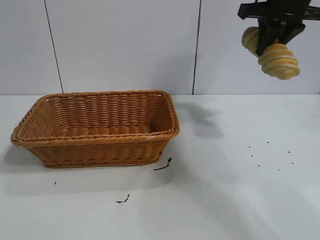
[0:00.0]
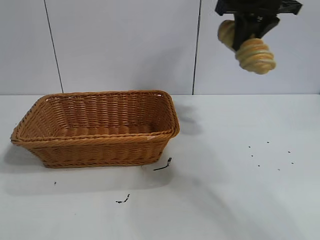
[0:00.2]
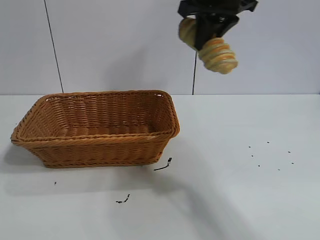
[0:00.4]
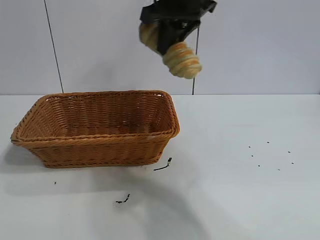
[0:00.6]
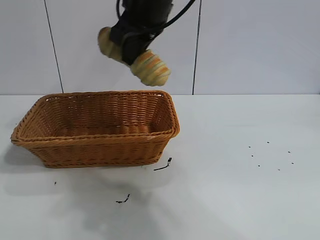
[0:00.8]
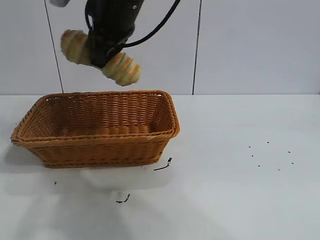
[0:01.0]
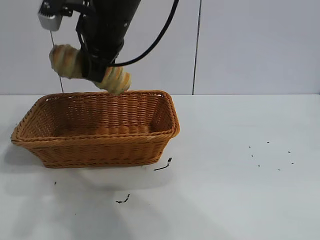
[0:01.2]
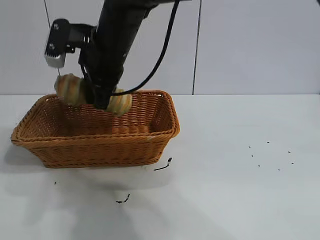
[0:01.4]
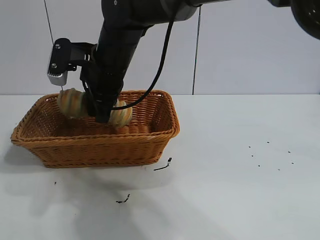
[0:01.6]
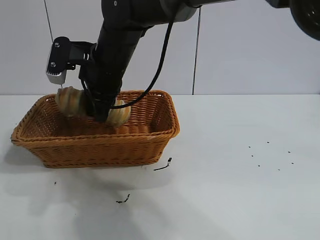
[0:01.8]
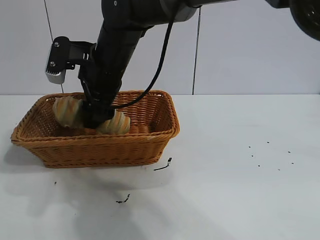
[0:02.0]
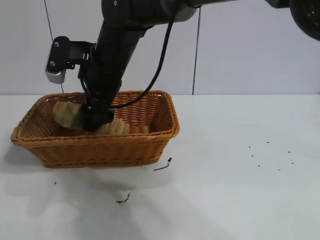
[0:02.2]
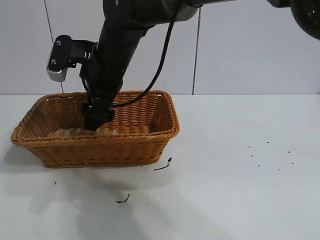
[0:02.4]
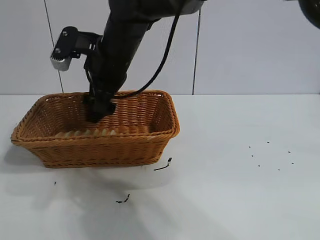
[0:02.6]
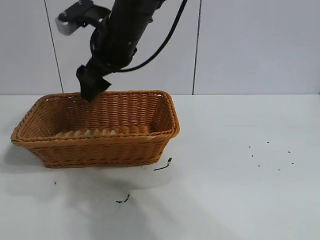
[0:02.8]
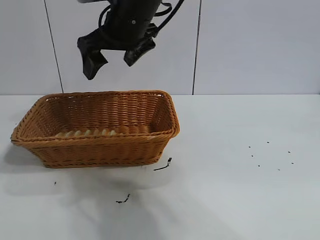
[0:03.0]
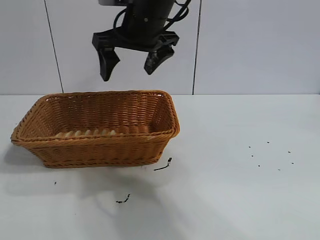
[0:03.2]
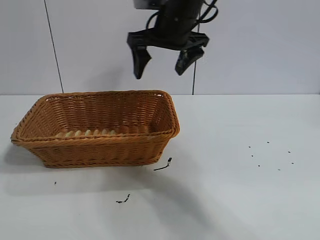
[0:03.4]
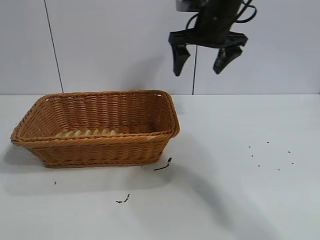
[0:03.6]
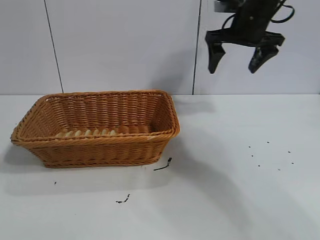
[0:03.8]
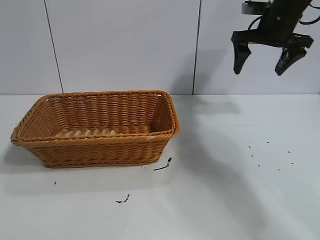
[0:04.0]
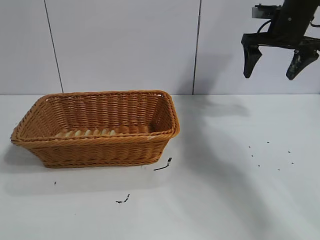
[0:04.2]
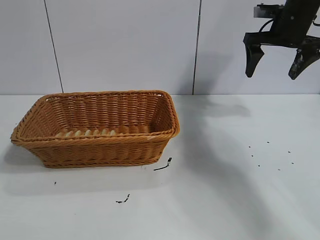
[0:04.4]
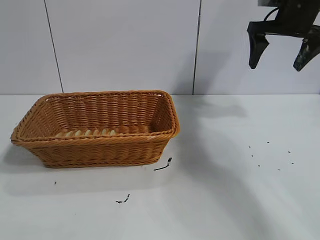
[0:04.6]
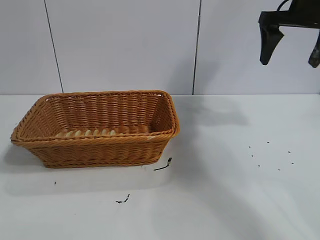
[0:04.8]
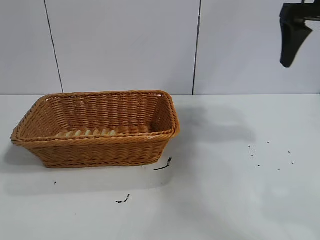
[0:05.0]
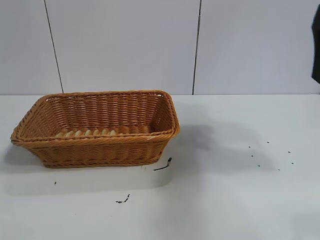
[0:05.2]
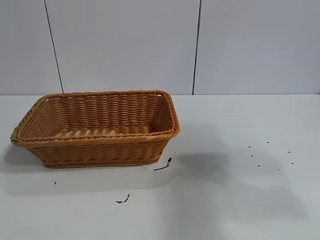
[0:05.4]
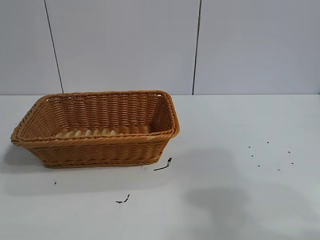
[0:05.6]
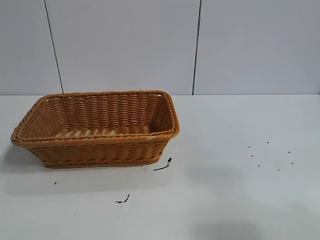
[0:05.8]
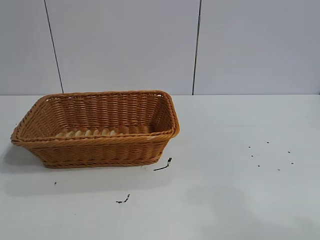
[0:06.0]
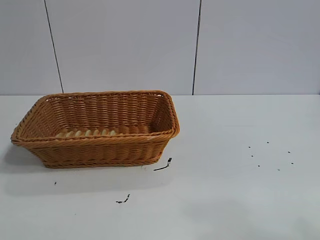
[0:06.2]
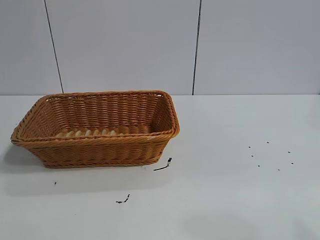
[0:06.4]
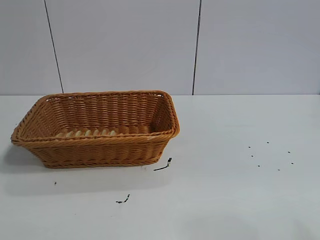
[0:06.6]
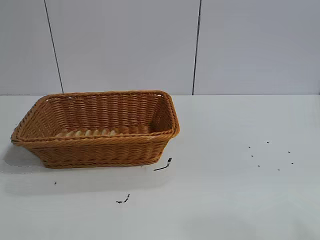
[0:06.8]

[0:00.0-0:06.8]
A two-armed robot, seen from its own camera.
Task of the whole recording: pick up the long bread and put it into the basket.
Step, 0:00.0 to 0:02.6: Place the long bread in the basket with right gripper.

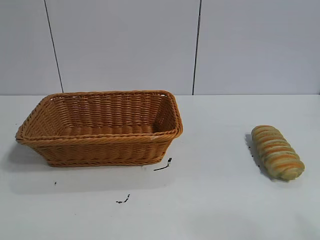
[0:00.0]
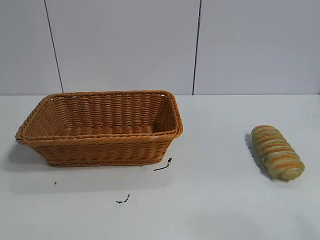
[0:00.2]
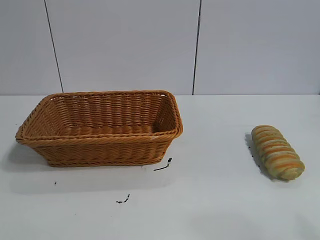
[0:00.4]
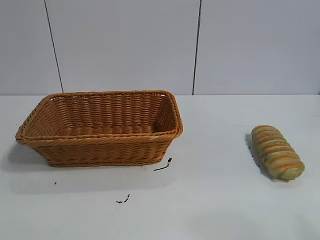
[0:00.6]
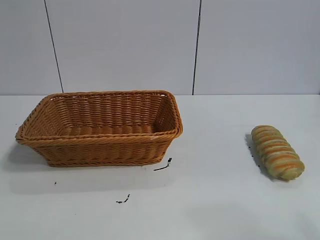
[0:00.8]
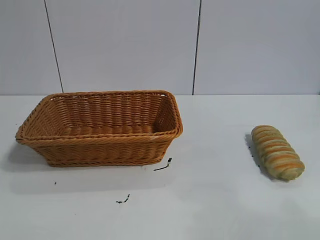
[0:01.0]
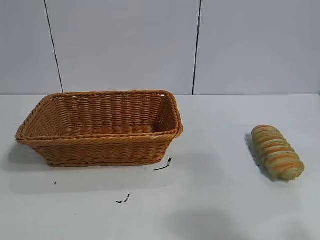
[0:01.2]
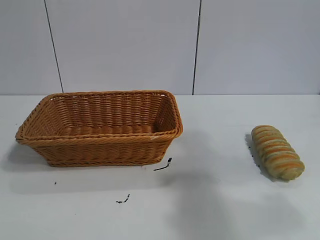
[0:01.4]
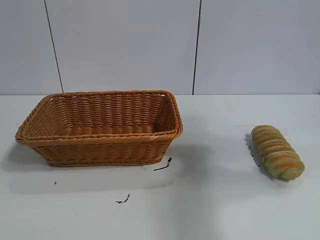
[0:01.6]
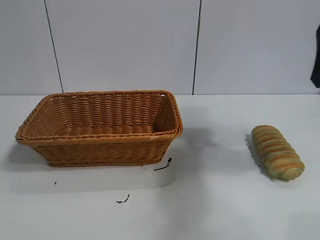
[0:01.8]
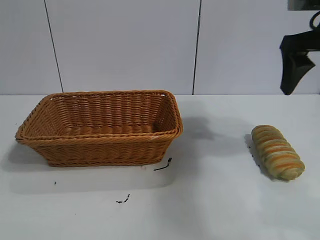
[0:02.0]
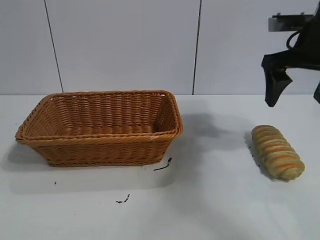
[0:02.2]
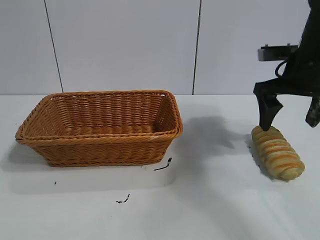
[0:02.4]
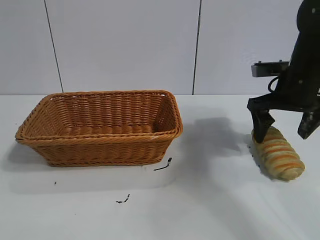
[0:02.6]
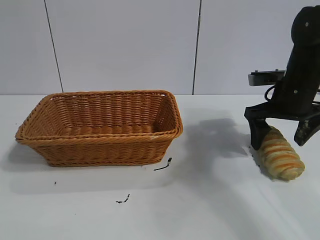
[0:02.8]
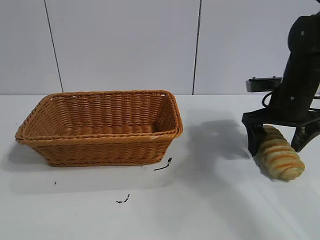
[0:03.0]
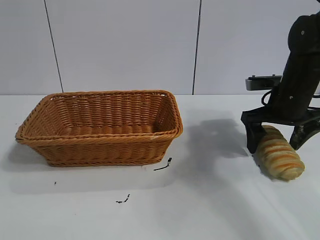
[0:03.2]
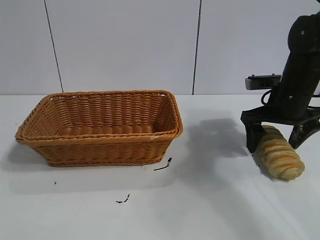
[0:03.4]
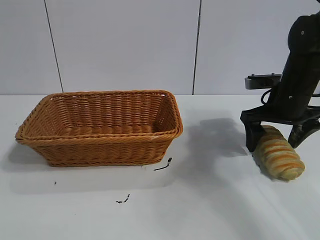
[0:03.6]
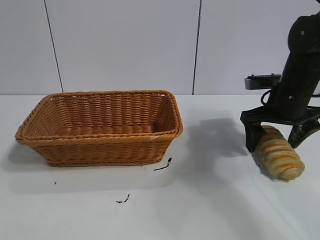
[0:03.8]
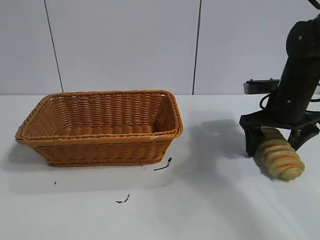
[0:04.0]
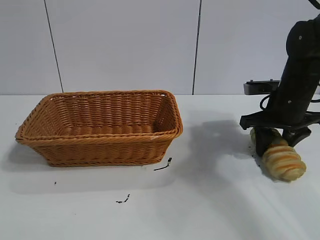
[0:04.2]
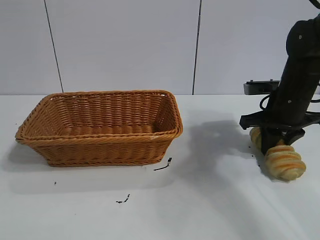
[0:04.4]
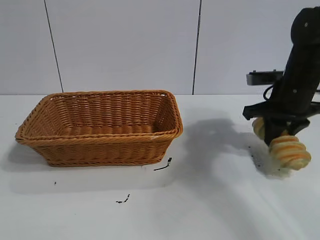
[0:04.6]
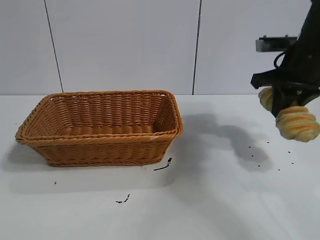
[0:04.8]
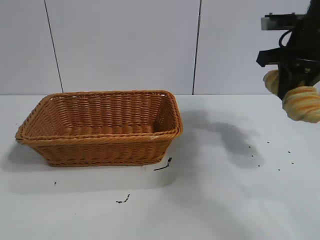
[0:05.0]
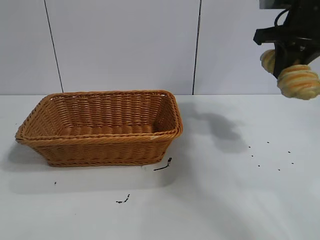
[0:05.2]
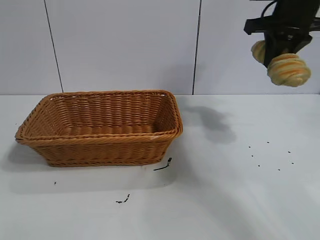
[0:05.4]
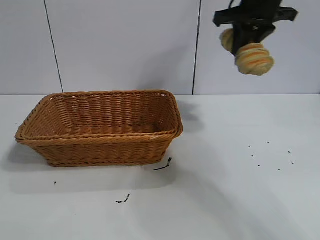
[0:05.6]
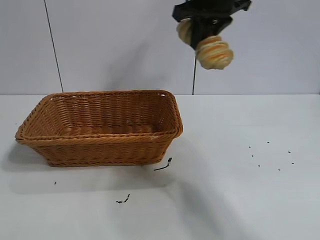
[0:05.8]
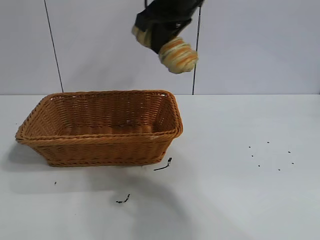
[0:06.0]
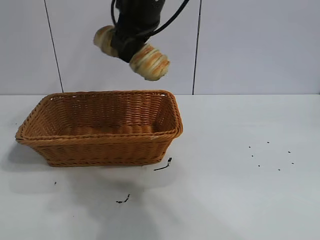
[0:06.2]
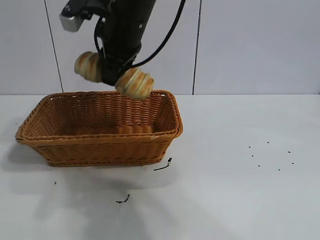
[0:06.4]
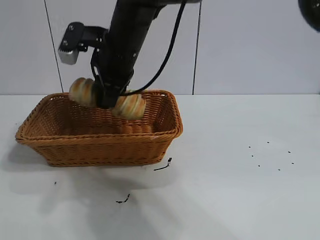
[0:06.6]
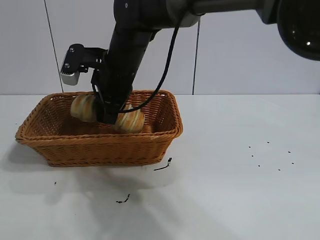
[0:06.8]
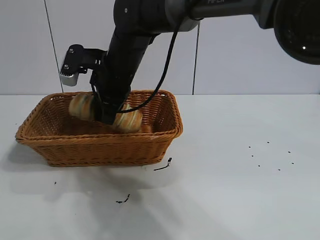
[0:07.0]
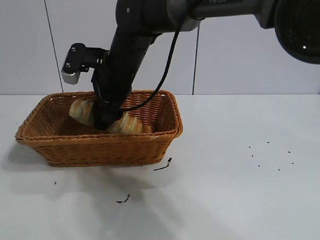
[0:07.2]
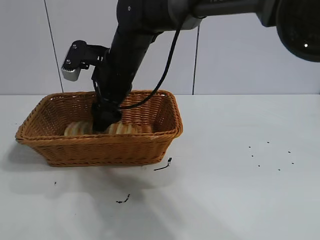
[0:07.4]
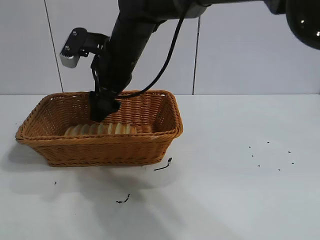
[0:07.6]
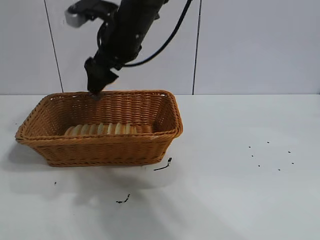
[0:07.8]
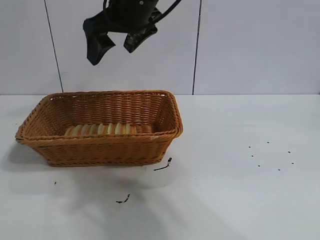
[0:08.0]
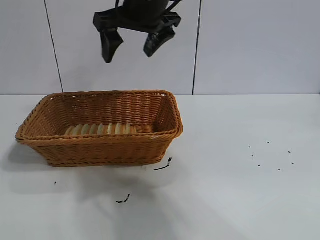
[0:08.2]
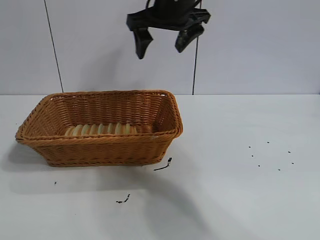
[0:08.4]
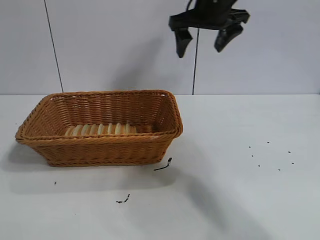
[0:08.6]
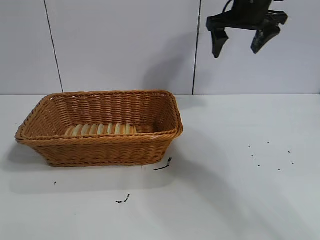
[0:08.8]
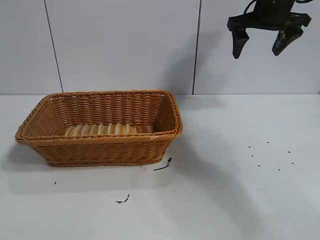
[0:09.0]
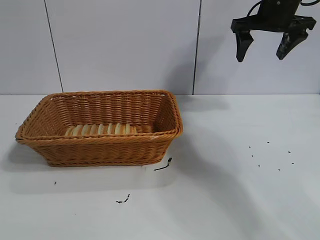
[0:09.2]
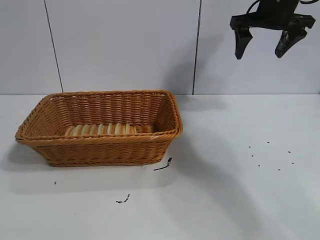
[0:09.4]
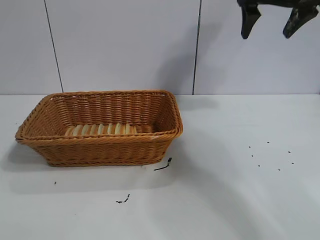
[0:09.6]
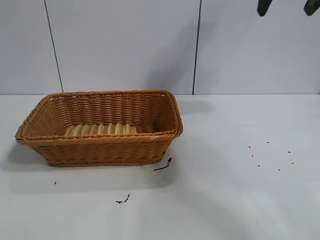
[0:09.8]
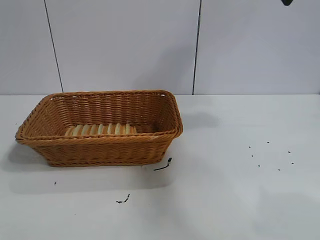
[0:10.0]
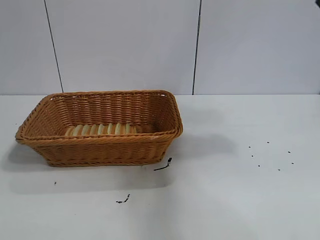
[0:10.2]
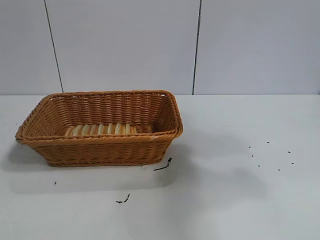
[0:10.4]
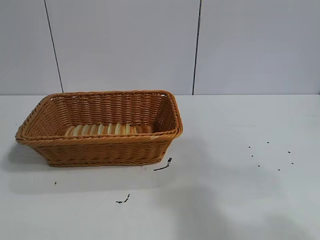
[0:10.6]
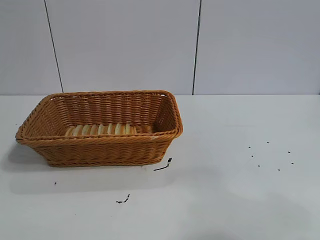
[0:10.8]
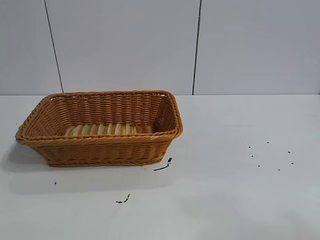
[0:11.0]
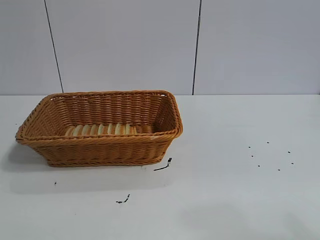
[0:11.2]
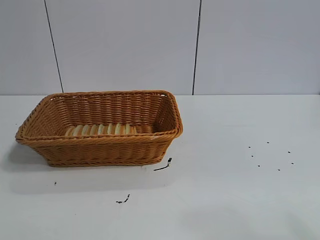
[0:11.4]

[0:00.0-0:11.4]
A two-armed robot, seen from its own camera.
Task of the whole recording: pick up the long bread and put it into the basket.
Step, 0:01.8 to 0:04.4: Grasp the long bread with right gripper.
Step, 0:04.6 to 0:07.6: Place the long bread in the basket with right gripper.
